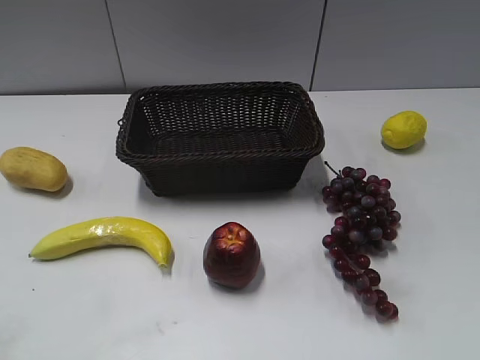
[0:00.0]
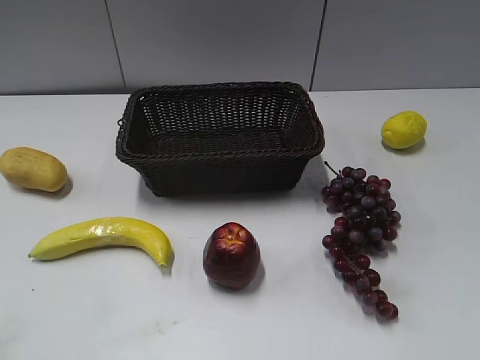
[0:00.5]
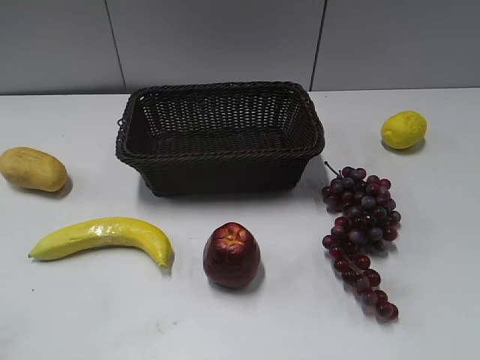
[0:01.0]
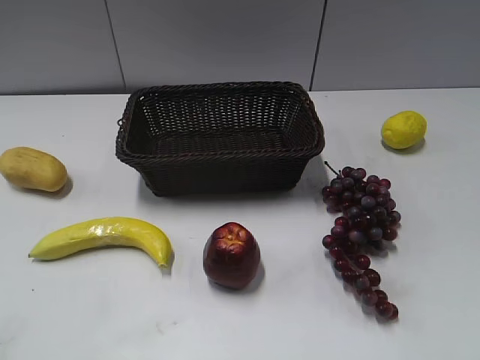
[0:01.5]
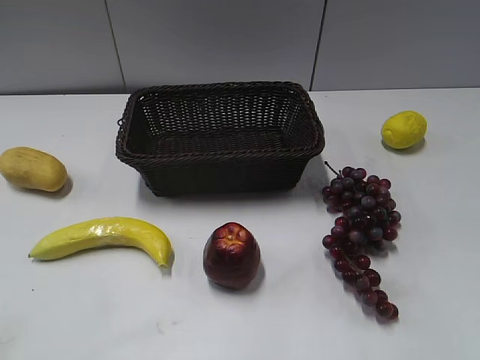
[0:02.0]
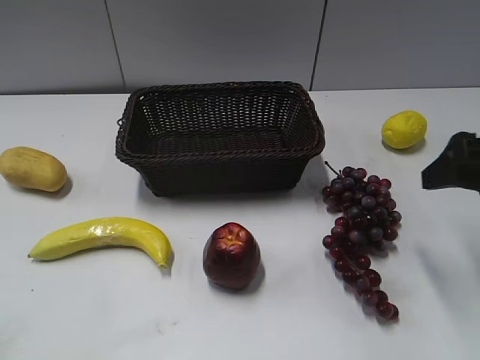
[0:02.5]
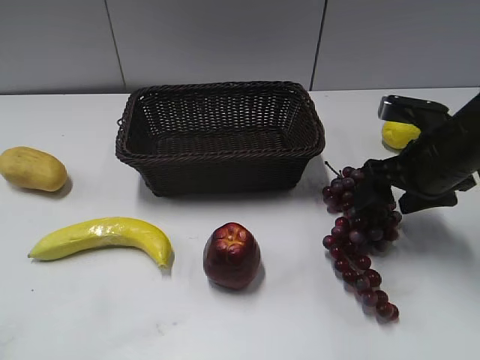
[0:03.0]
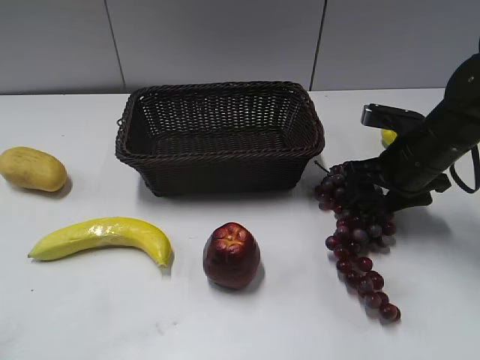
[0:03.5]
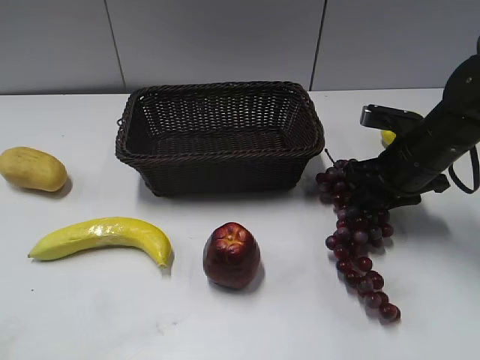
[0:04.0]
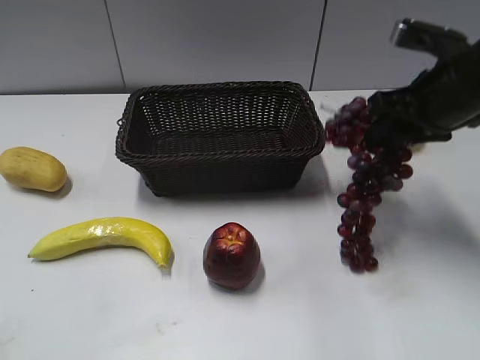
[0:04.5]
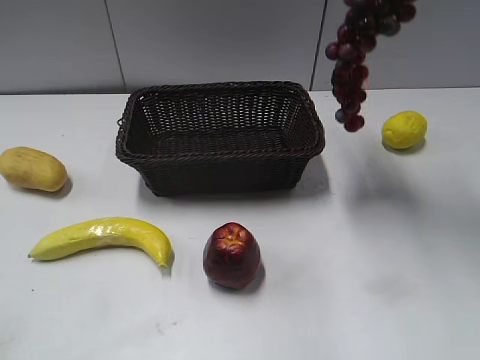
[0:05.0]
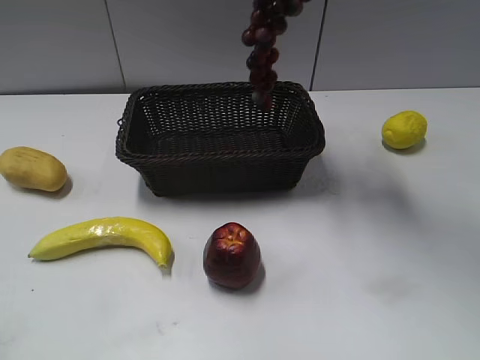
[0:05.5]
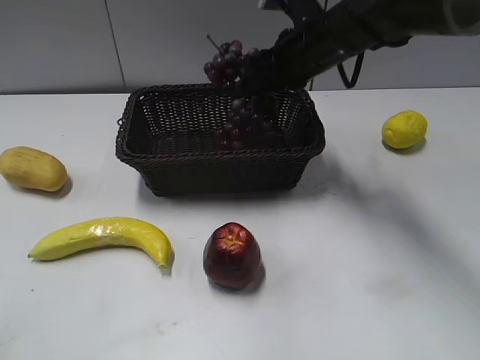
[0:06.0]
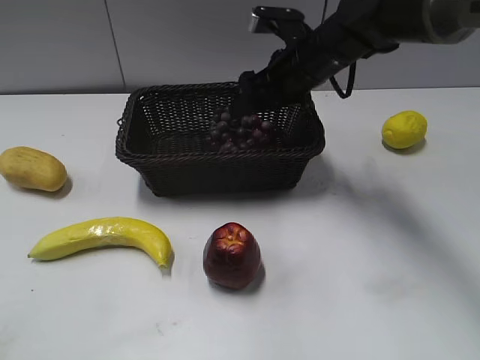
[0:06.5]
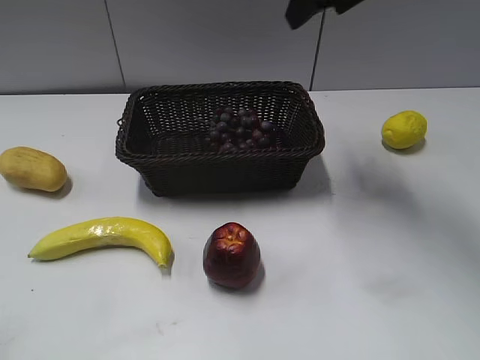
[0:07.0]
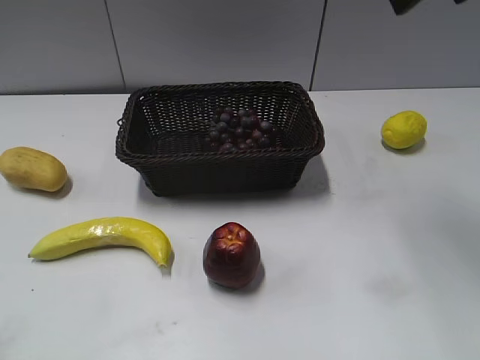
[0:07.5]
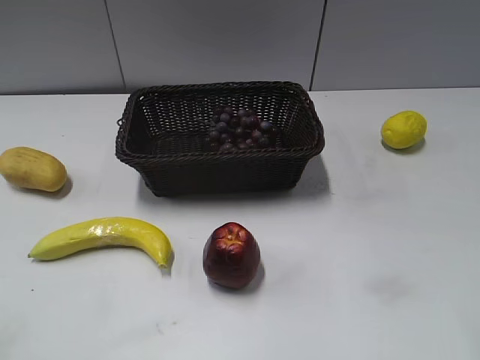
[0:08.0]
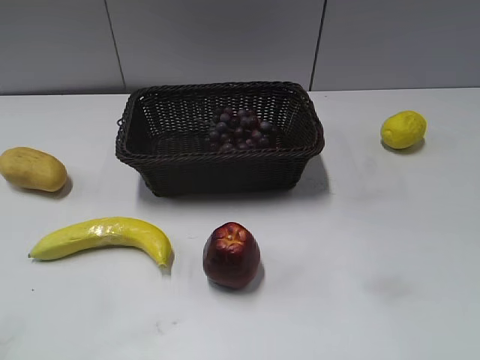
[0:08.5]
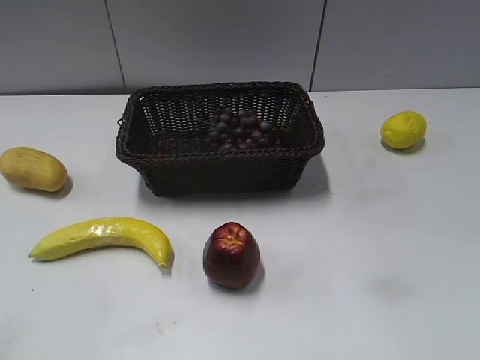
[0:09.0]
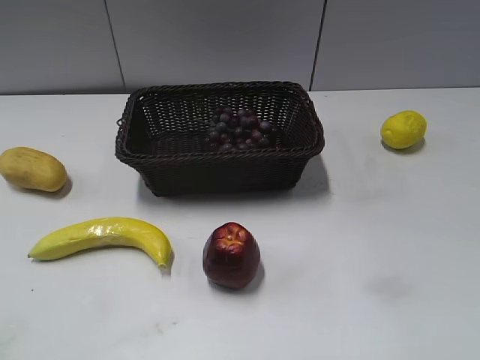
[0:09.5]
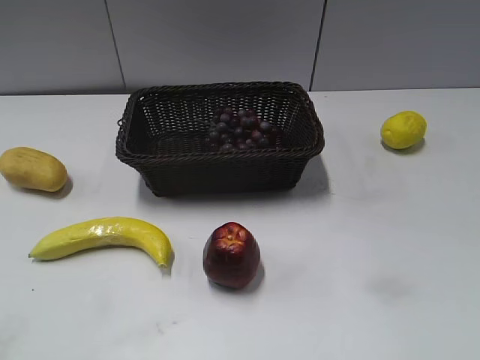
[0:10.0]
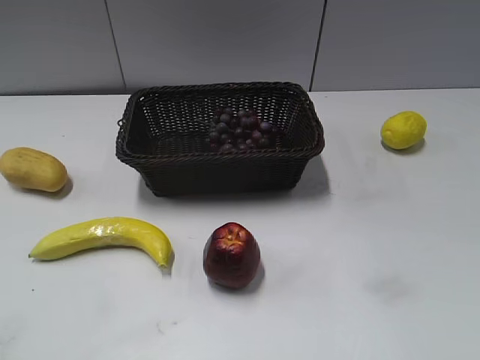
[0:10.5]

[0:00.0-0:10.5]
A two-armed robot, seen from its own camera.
Step, 0:02.5 to 0:04.0: Grasp the grape with right gripper.
Step, 0:04.5 to 0:06.5: Place the grape in the basket with right gripper.
0:02.0 to 0:04.0: The right gripper travels forward and downward by roughly 30 cm, and closes.
0:04.0 to 0:06.5: The right gripper heads to the left and forward, covering about 15 cm, reaches roughly 25 cm upward, then returns, and opens.
0:06.5 to 0:08.5: The right gripper moves backward and to the right, some 40 cm.
